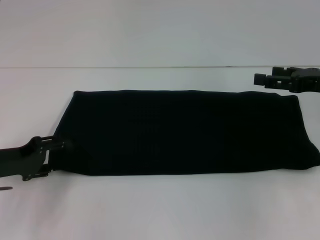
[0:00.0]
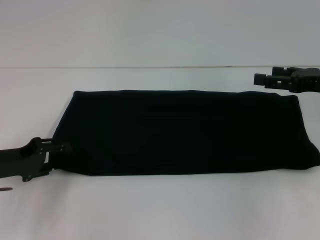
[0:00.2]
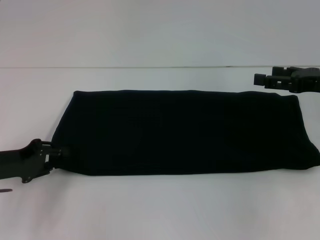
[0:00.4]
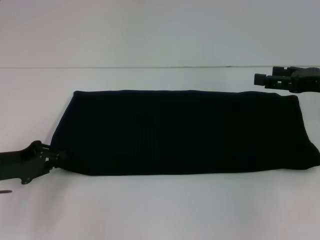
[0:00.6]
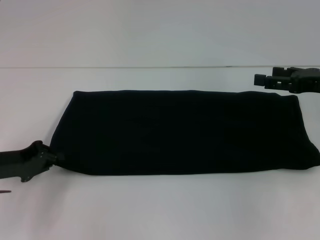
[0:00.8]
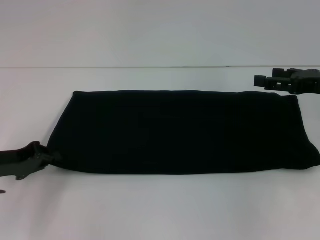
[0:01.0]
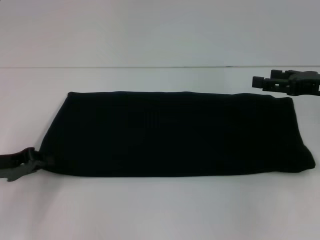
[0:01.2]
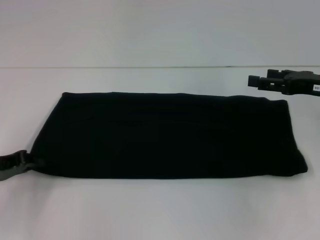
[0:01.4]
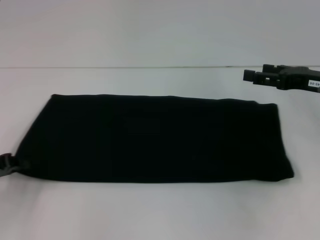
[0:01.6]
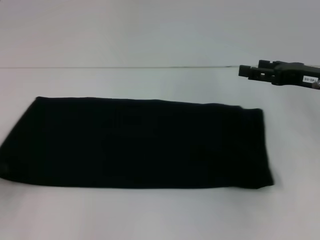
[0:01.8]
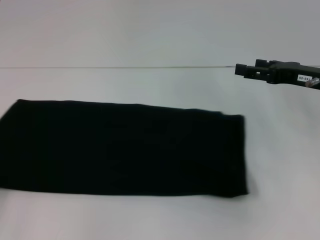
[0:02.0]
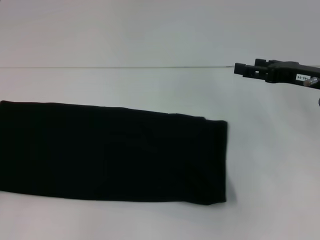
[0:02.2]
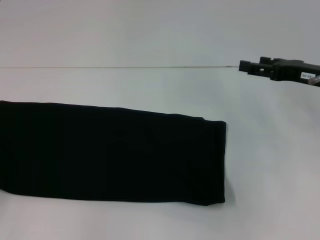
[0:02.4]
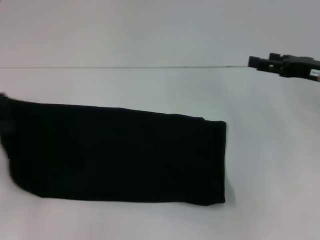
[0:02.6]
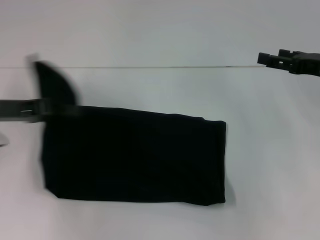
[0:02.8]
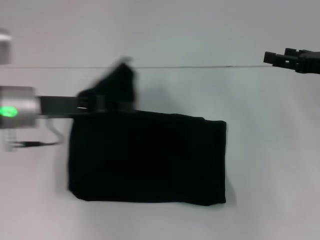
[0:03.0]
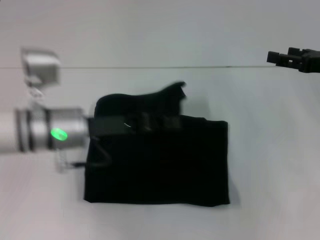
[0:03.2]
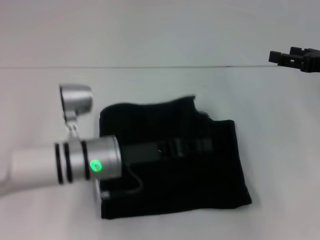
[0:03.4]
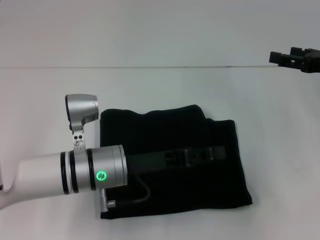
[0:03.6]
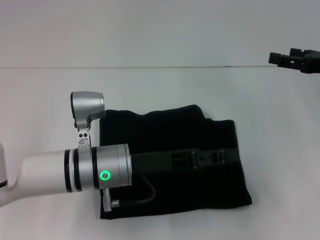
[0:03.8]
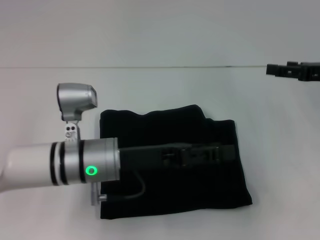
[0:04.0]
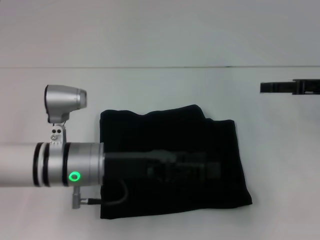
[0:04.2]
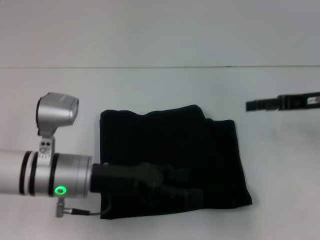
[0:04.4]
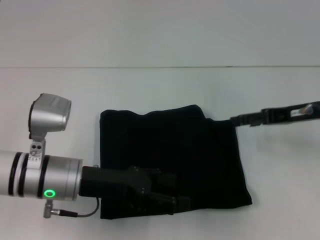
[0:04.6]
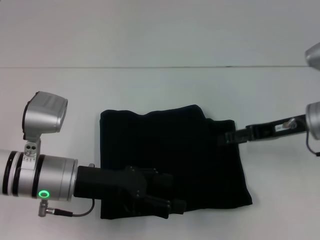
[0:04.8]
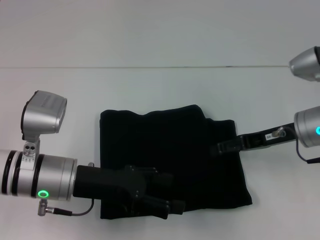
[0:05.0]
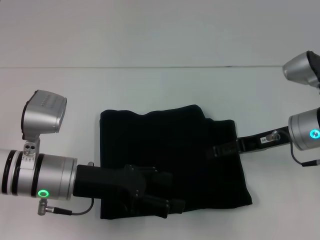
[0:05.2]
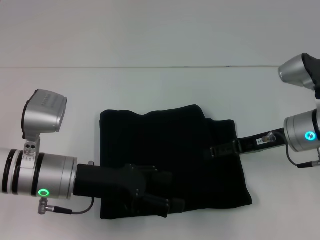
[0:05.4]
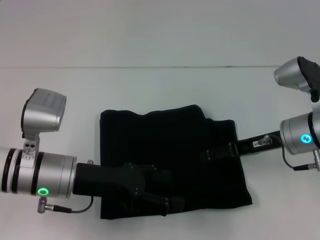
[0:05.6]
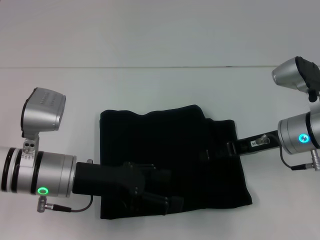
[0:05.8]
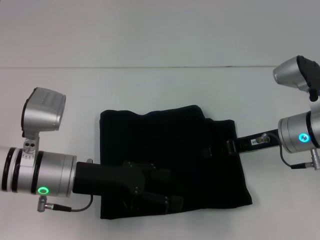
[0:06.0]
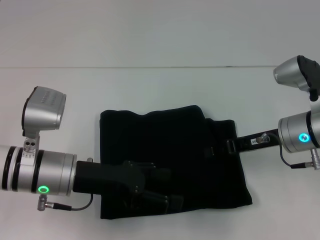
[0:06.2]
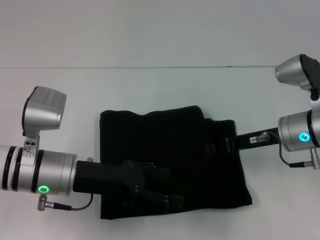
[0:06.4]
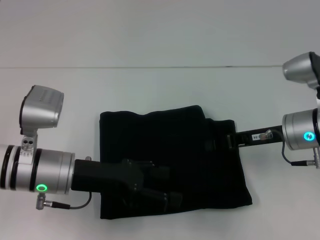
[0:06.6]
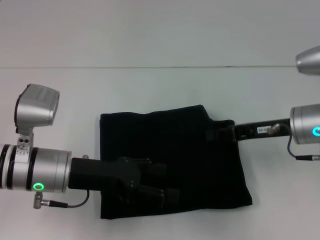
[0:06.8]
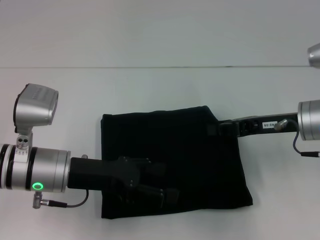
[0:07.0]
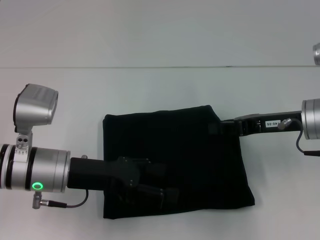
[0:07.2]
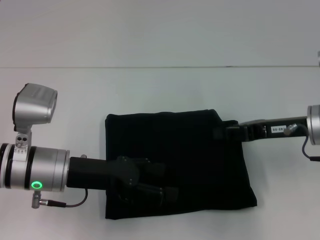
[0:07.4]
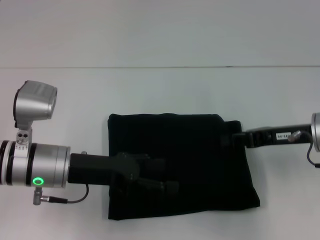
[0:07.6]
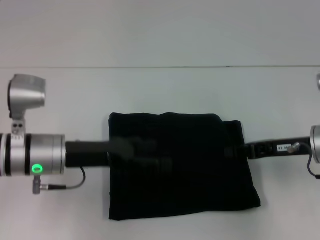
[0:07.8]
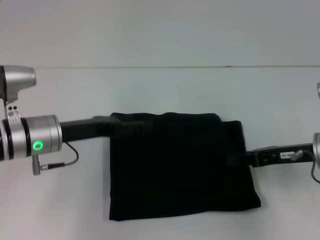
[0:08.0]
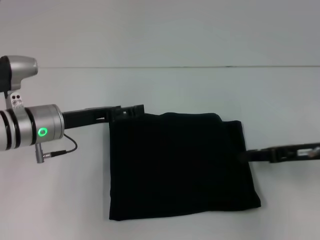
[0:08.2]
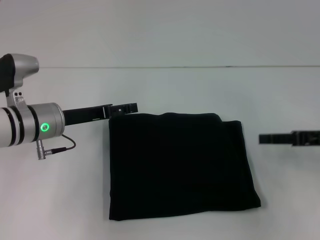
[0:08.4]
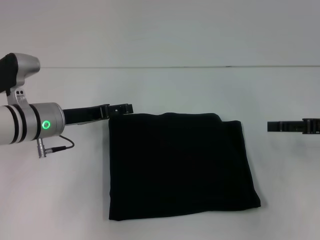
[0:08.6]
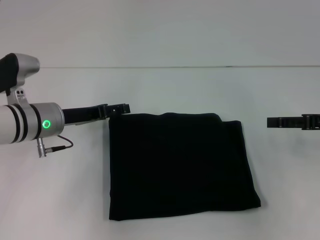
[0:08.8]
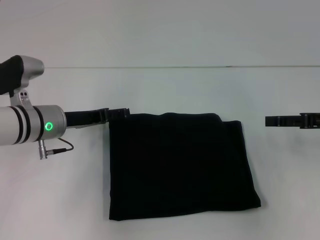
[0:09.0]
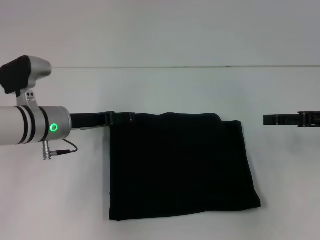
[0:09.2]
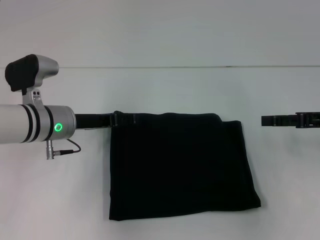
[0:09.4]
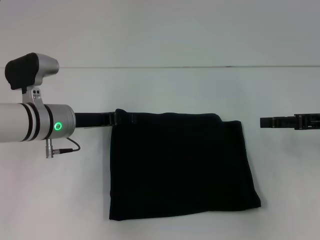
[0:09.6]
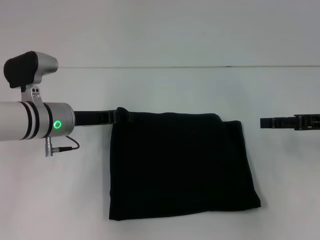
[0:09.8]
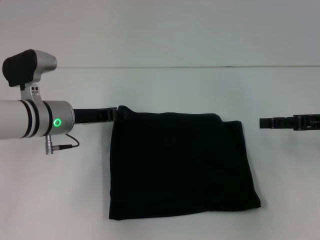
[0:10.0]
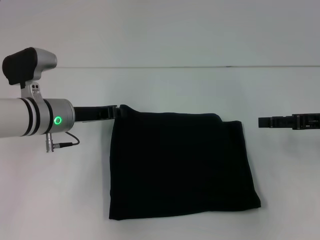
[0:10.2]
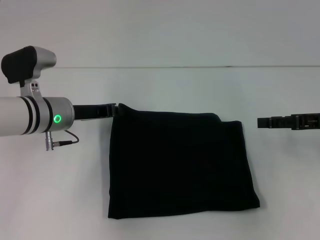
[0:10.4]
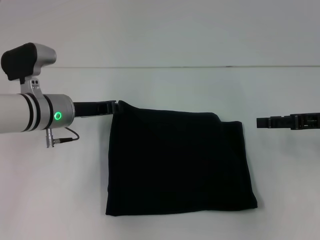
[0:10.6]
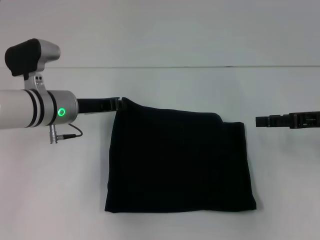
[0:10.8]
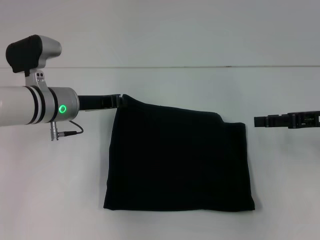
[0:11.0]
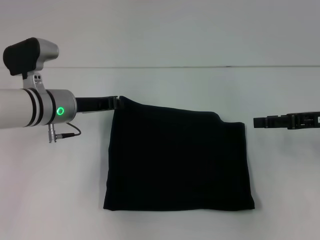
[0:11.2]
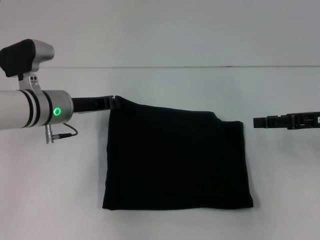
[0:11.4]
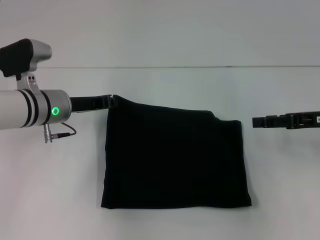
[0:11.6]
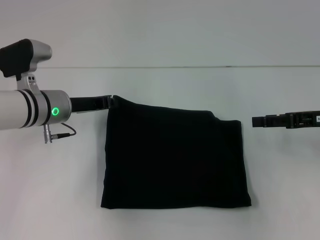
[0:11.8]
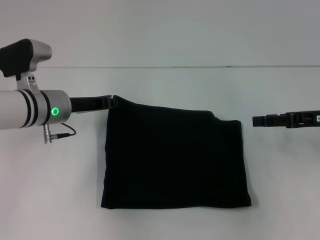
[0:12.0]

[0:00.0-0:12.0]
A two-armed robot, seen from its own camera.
Step, 0:00.0 to 0:04.8: Fold the clothes with your left hand.
0:00.0 to 0:01.6: The left gripper closes up.
0:01.6 to 0:03.0: The left gripper travels to the right, upward and forward by approximately 15 cm.
0:03.0 to 0:04.4: The left gripper travels to the right, downward and backward by roughly 10 cm, and opens up.
0:04.4 to 0:06.0: The right gripper goes roughly 10 cm to the left.
0:06.0 to 0:07.6: The right gripper closes its fingers.
0:07.6 to 0:09.0: The right gripper heads to the right, covering roughly 10 cm, and opens up, while the left gripper heads forward, covering about 10 cm.
0:09.0 to 0:10.4: The left gripper closes up.
0:10.4 to 0:12.0: The grippers make only small movements.

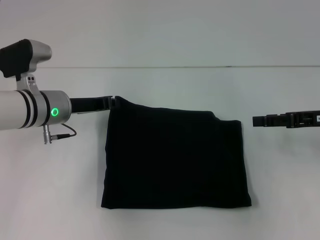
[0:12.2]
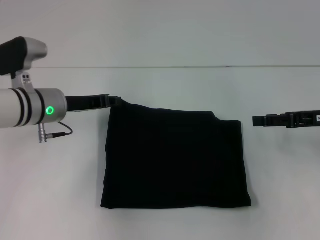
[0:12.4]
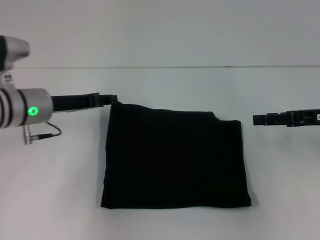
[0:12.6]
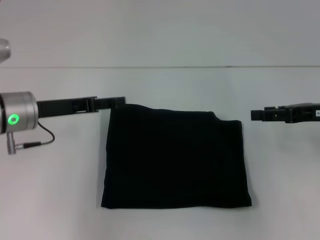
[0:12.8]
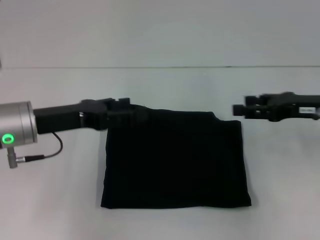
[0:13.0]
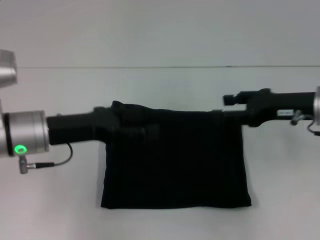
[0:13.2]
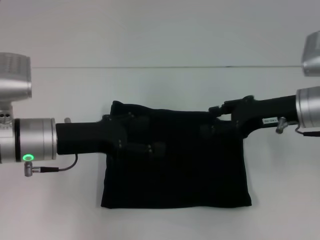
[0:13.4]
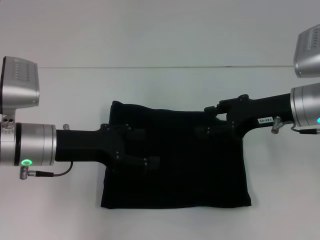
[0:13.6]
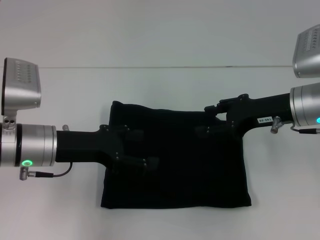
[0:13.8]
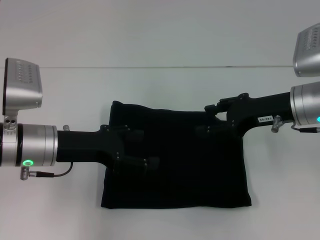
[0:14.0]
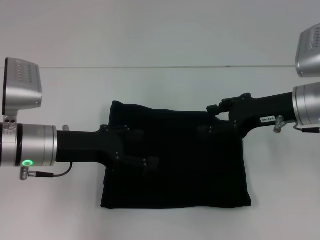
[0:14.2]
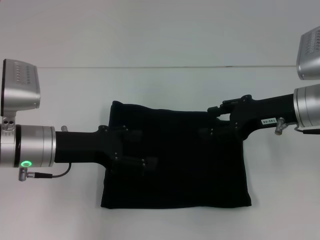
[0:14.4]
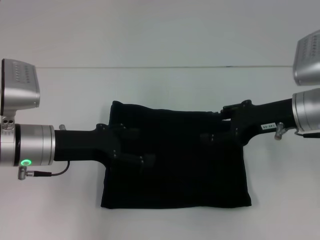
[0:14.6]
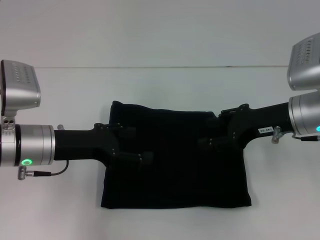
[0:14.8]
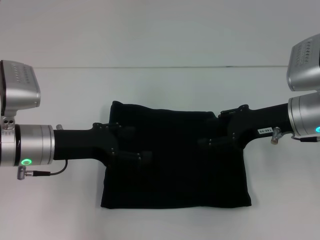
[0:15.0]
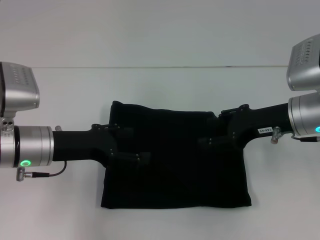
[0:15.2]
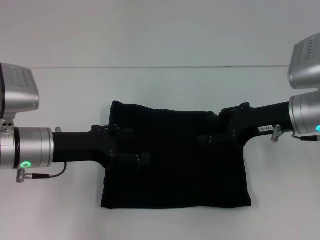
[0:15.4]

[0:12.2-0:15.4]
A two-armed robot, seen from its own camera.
0:12.2 to 0:13.8: The left gripper is displaced backward by approximately 10 cm, and opens its fingers. Meanwhile the right gripper shifts roughly 10 cm to the left.
0:13.8 to 0:15.4: The grippers make only small movements.
